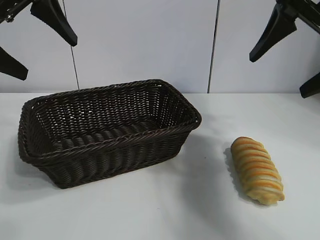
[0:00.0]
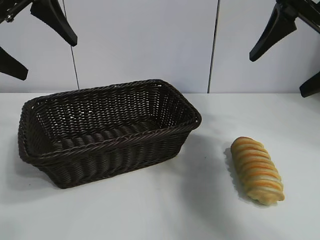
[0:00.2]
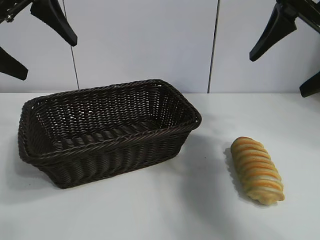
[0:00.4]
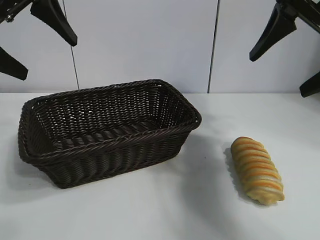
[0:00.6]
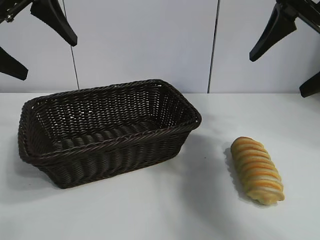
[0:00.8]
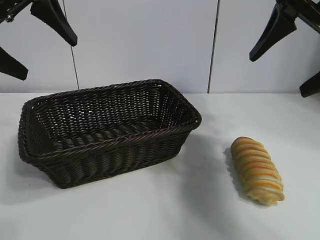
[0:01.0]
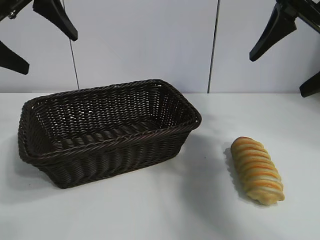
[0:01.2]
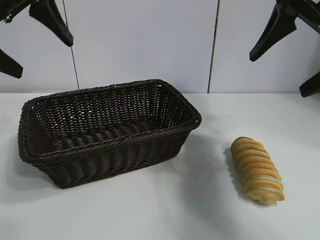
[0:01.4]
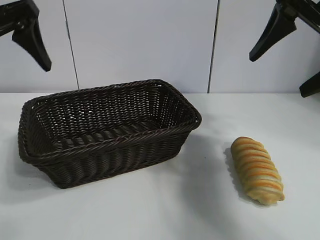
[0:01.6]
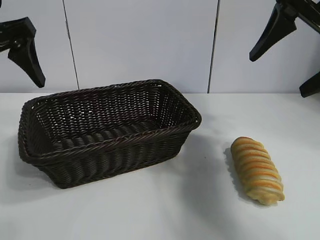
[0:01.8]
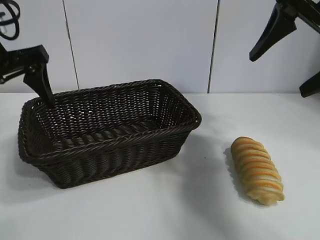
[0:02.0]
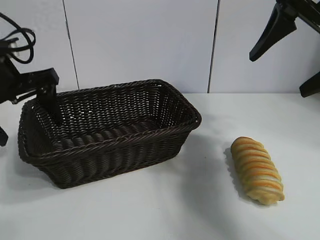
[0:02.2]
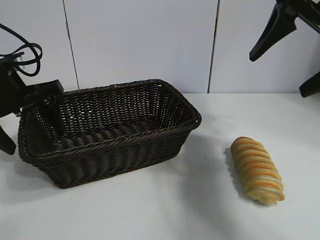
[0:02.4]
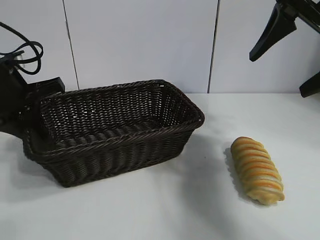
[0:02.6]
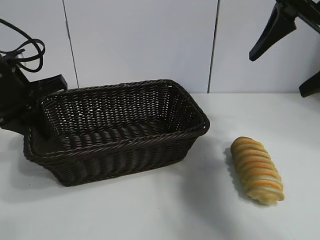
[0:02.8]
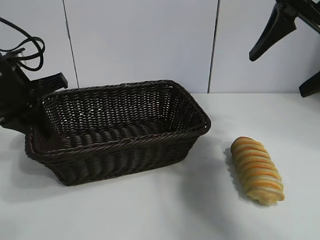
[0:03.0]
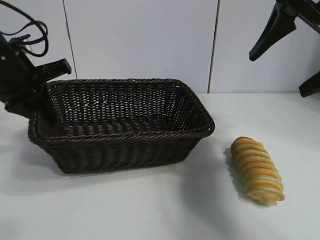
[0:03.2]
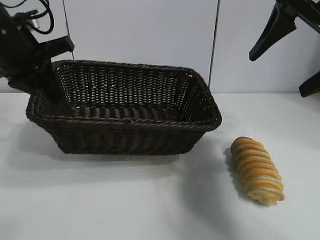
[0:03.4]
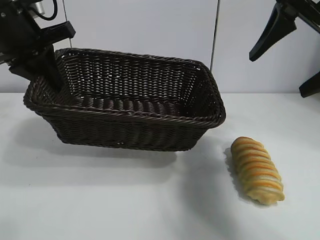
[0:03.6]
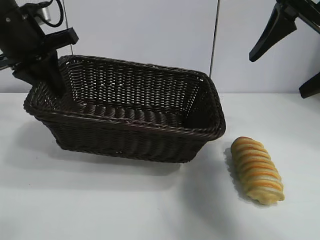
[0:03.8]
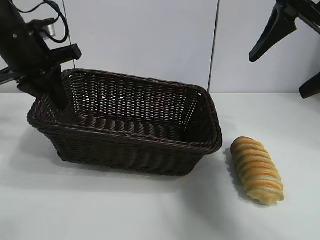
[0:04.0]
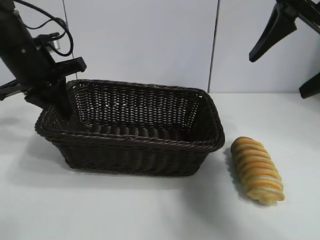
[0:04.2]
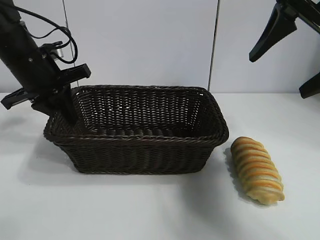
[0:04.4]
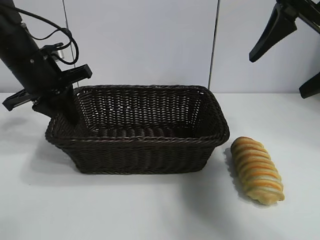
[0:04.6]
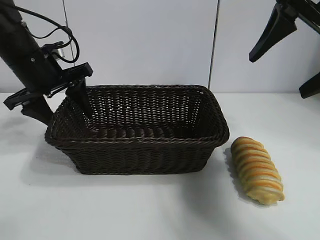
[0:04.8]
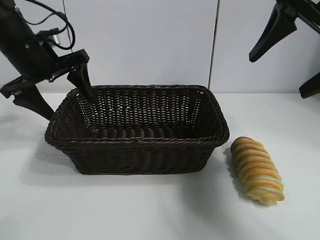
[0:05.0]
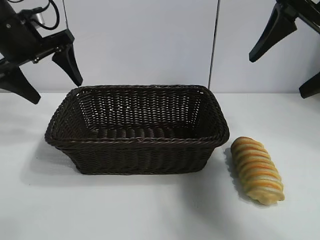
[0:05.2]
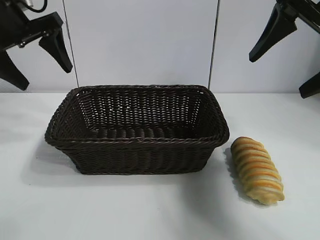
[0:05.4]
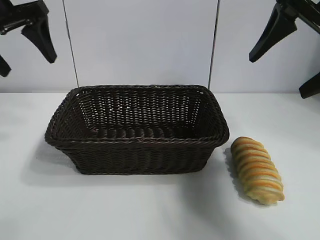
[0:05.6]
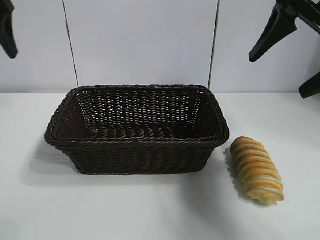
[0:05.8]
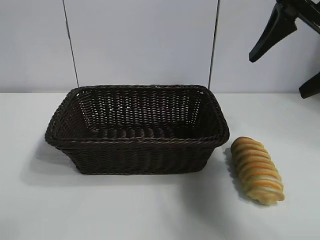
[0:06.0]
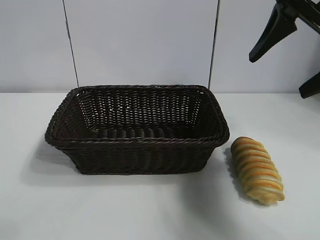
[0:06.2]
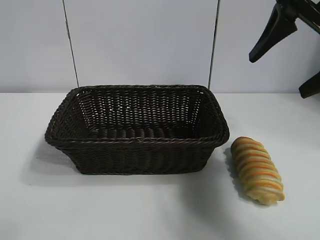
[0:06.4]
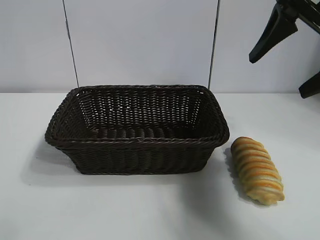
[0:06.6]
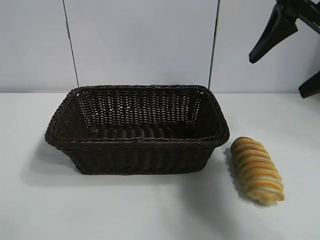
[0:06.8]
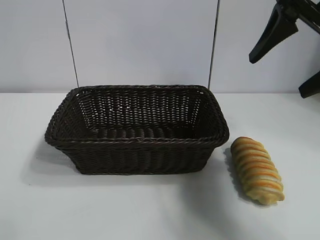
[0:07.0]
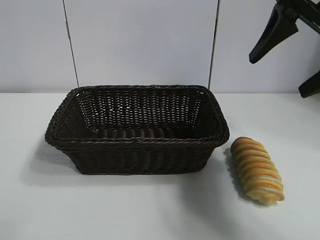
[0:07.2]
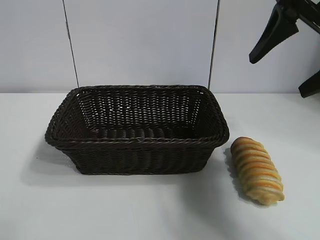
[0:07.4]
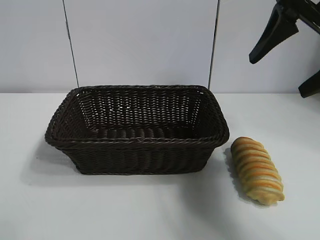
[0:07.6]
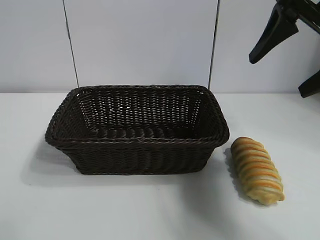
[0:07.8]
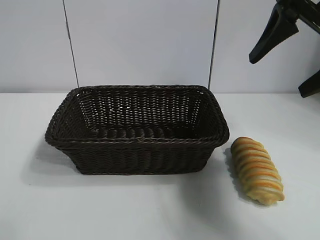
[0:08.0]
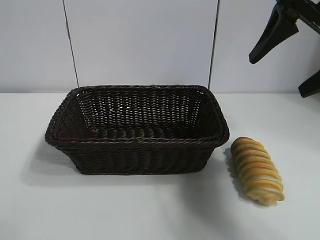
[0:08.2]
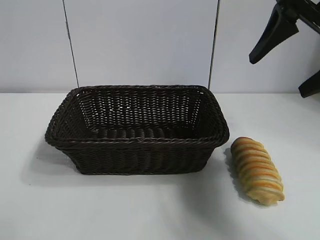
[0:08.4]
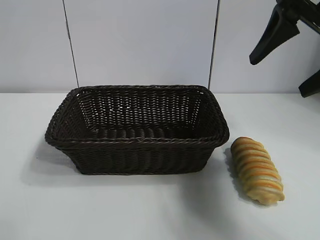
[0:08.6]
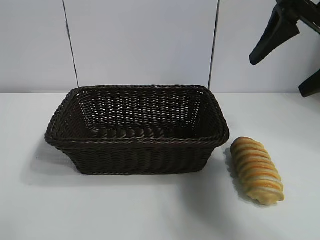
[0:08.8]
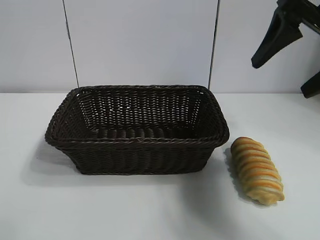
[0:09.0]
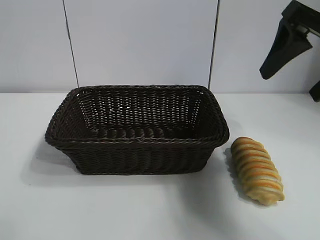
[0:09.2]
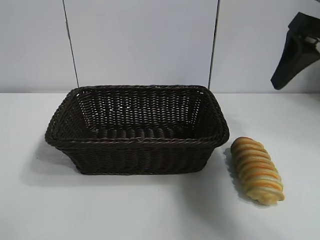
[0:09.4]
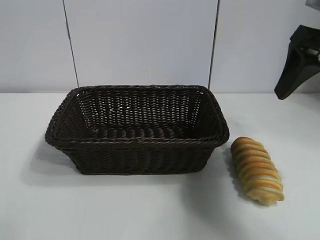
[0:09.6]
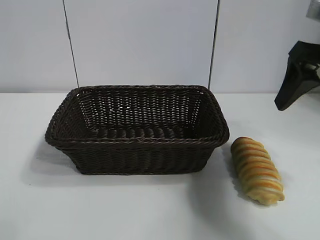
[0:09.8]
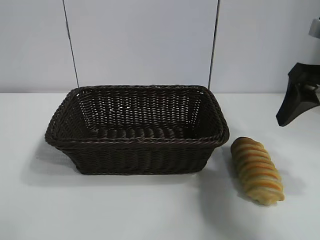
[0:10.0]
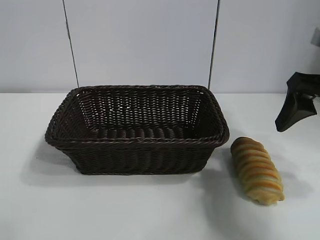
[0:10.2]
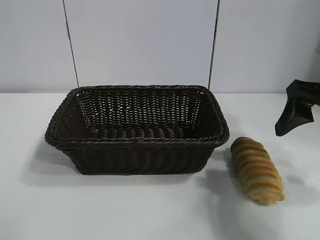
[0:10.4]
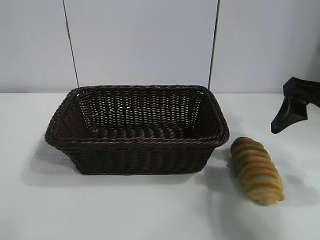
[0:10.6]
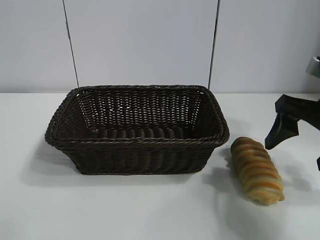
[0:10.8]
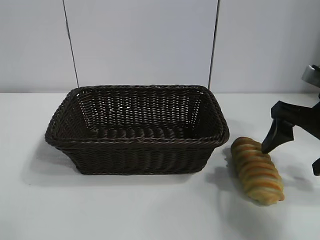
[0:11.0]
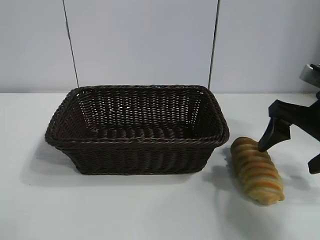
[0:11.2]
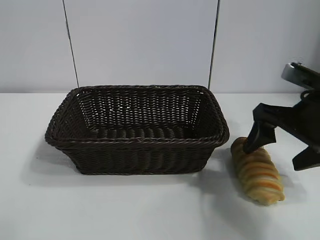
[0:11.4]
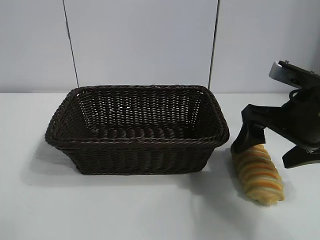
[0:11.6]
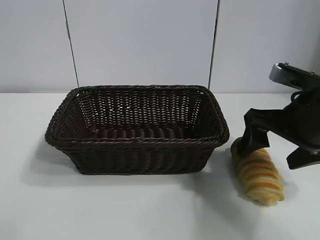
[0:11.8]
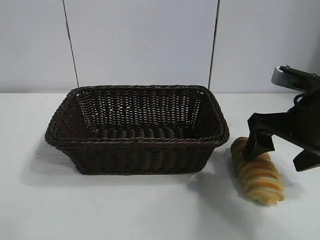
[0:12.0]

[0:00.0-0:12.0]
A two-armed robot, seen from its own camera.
Task of the whole recording: pick up the long bread and put it into the basket.
Step, 0:01.2 to 0:02.6: Grasp the basket with the left gripper.
Step, 0:02.8 to 0:04.8: Place the basket in the center of the table with the left gripper.

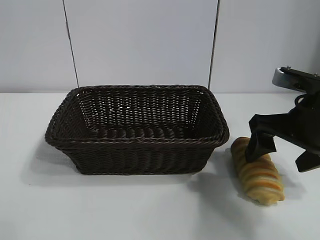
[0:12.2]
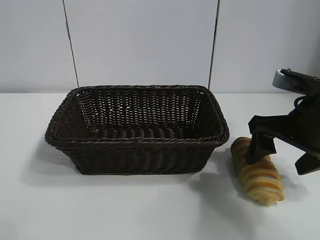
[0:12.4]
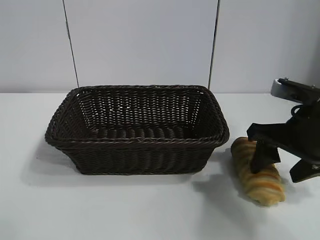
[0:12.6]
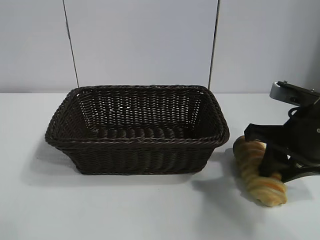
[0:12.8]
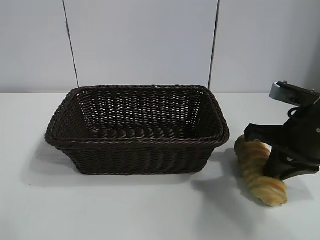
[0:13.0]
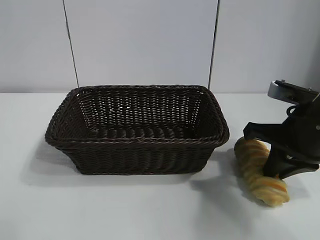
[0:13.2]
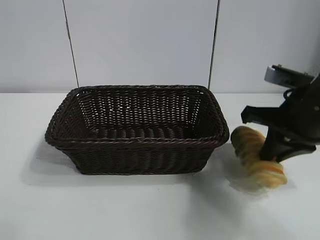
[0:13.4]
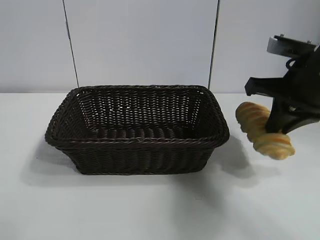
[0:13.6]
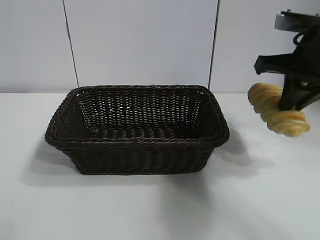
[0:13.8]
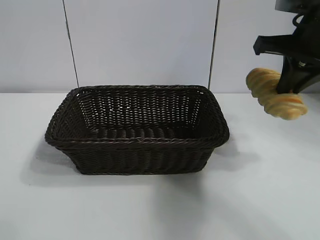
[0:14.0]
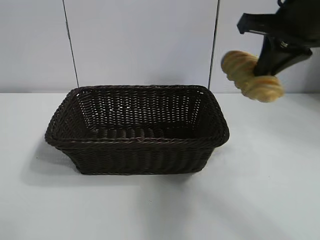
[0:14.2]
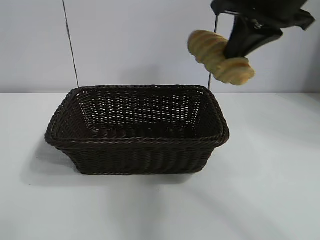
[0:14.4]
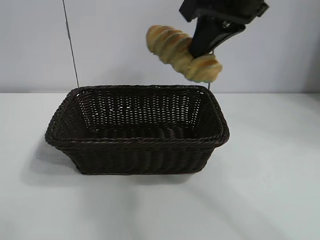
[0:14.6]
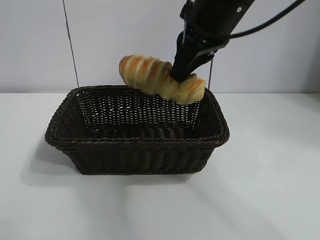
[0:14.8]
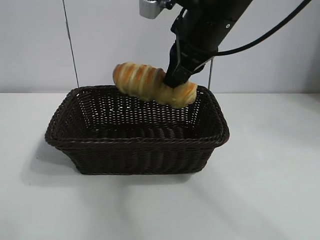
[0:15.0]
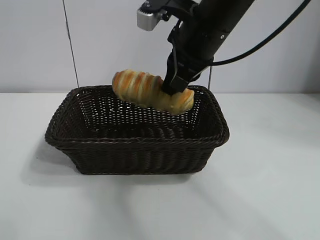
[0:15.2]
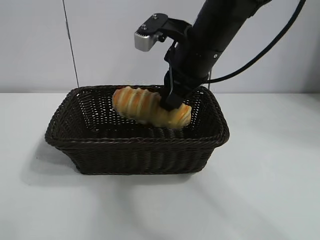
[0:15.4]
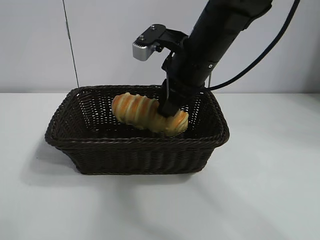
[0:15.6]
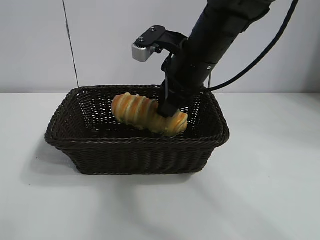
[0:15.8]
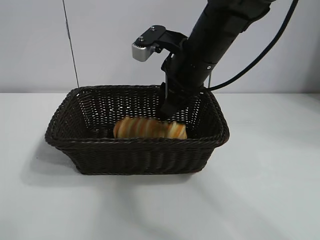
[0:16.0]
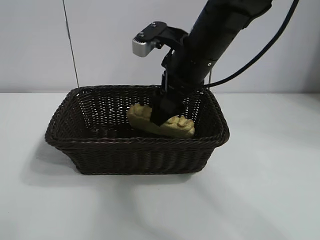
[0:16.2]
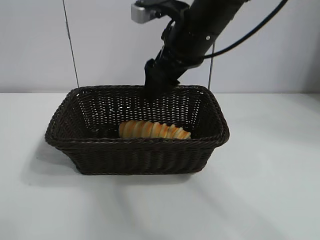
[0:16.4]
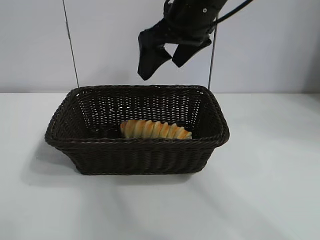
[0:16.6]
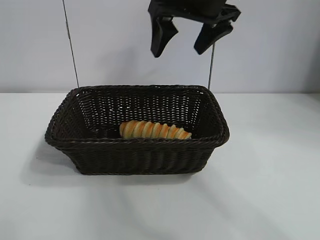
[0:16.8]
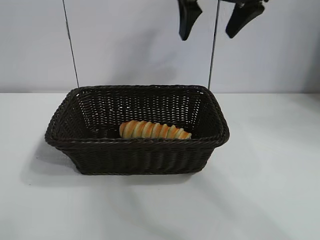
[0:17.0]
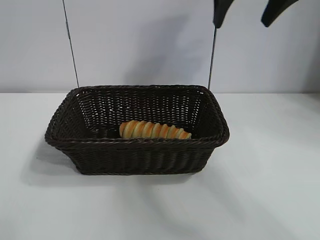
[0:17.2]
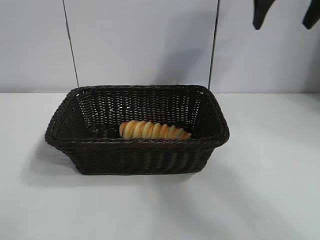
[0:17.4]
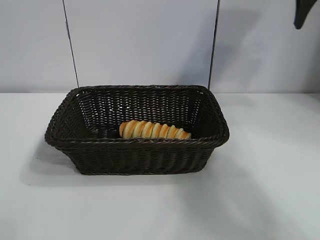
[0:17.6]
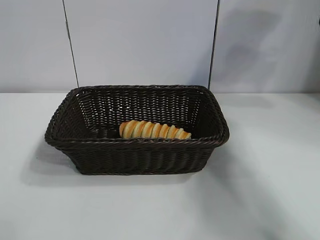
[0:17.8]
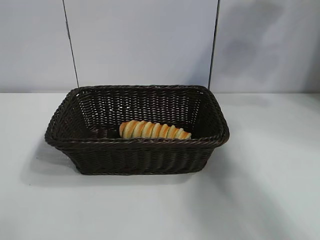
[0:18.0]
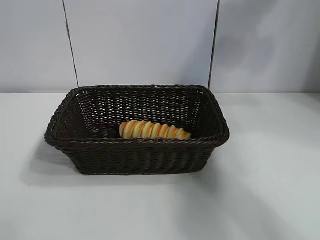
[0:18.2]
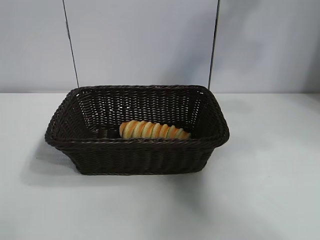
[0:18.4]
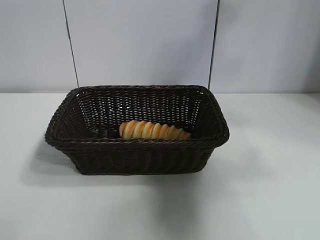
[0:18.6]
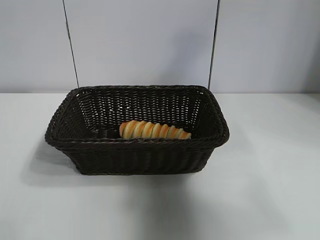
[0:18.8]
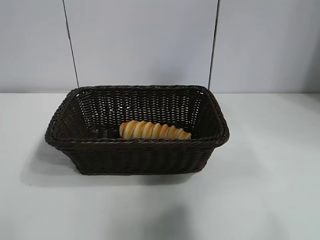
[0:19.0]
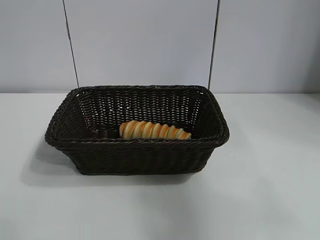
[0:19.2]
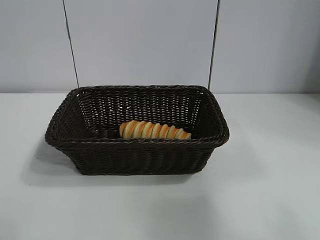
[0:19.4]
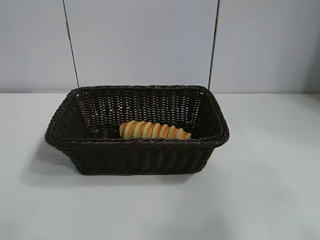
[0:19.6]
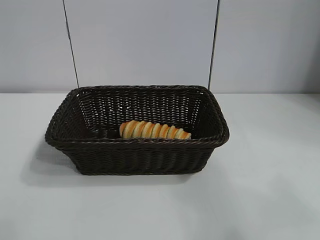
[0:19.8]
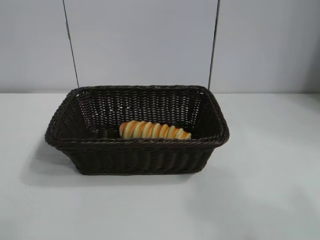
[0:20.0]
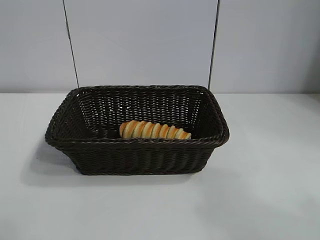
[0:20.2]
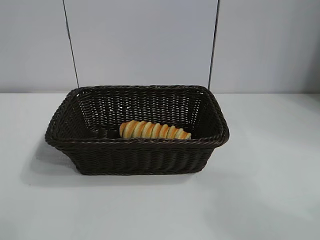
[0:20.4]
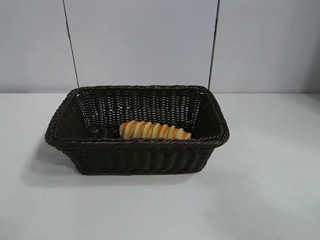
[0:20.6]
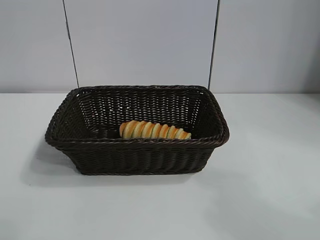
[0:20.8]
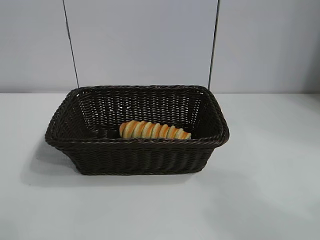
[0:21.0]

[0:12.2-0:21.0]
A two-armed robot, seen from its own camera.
Task of the whole recording: pick up the long bread and put it into the basket.
Step, 0:13.4 to 0:16.6: Place the long bread in the basket with right gripper.
